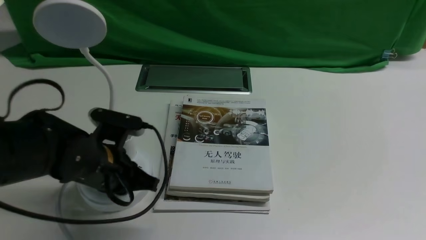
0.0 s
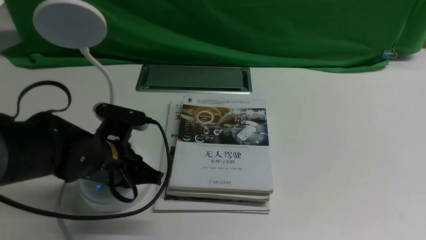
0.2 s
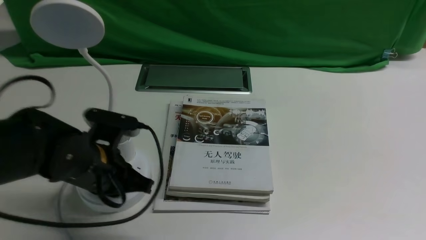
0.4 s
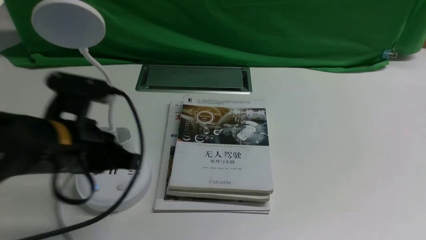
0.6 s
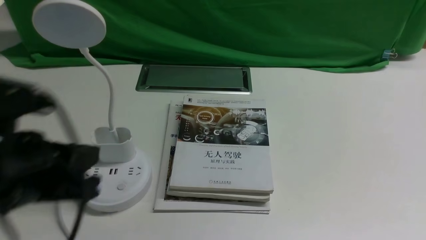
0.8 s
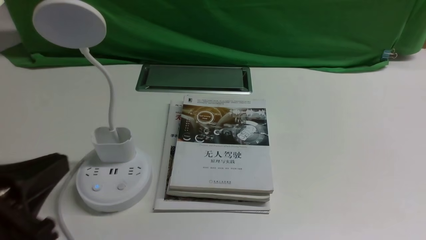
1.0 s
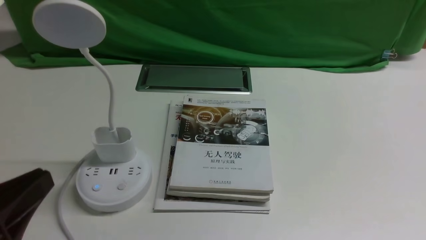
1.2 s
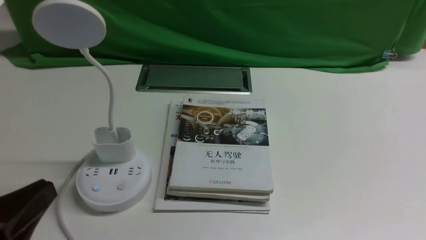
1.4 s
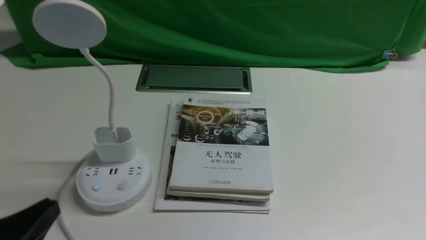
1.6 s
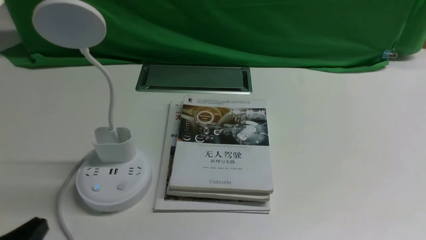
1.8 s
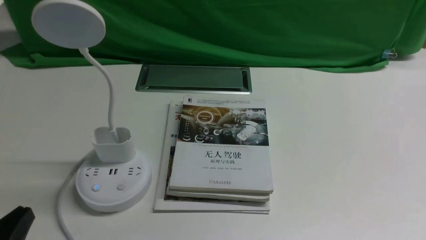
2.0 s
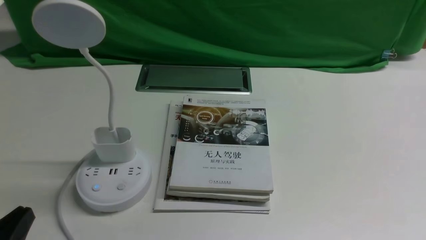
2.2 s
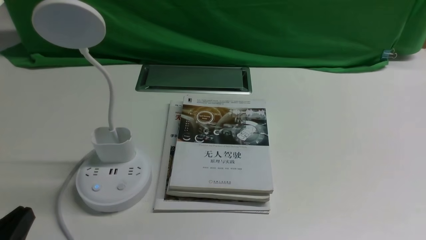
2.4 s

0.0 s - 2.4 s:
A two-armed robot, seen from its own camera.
Task of the whole recording: turn off the desk lamp on the white desktop by hand.
0.0 s - 1.2 s: The left gripper travels backward and upward by about 20 cm.
1.2 s - 2.4 s: The left gripper heads downward, covering approximately 10 cm.

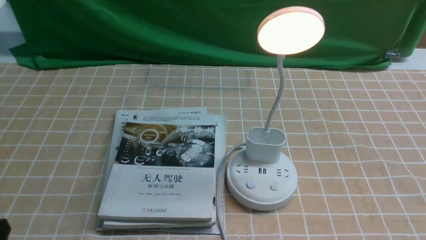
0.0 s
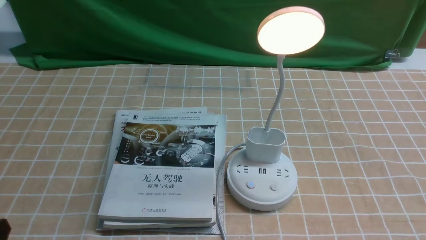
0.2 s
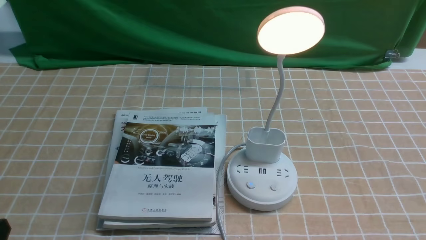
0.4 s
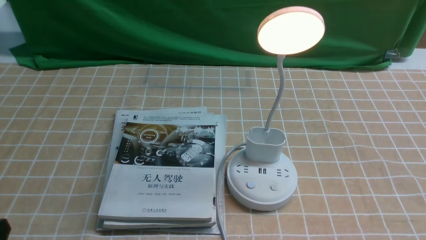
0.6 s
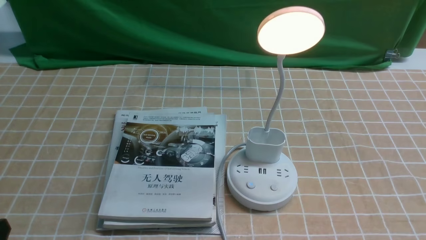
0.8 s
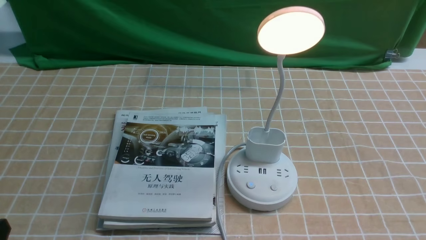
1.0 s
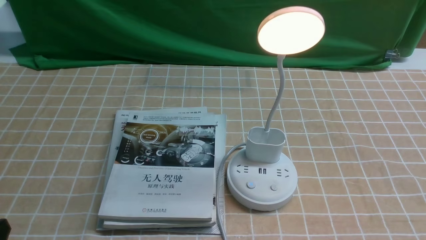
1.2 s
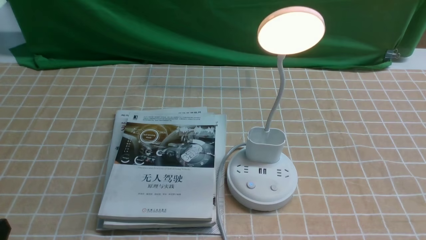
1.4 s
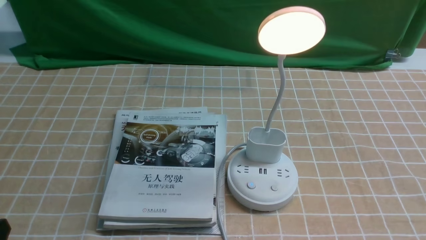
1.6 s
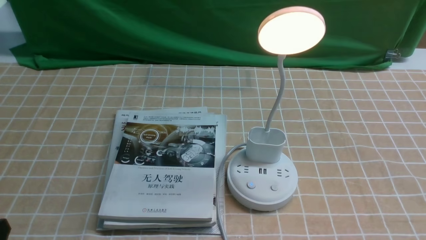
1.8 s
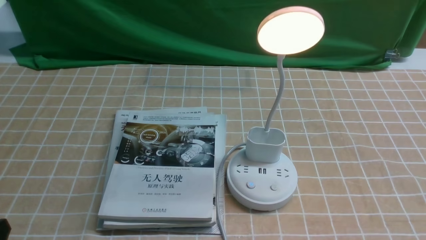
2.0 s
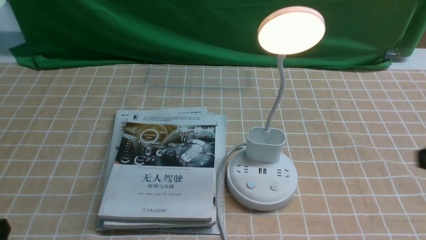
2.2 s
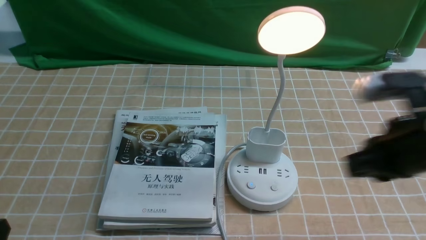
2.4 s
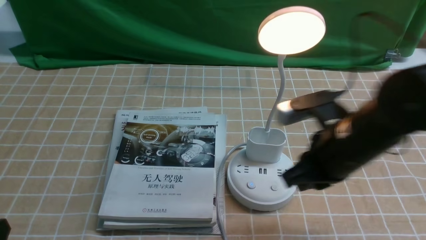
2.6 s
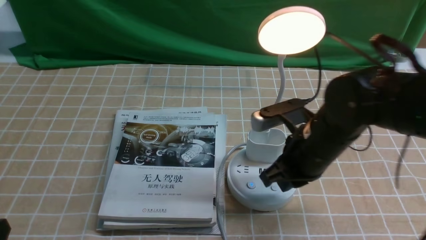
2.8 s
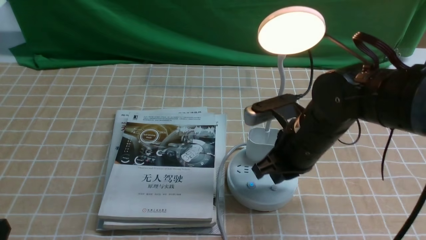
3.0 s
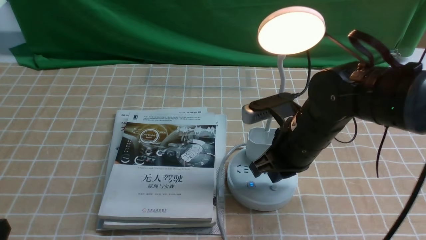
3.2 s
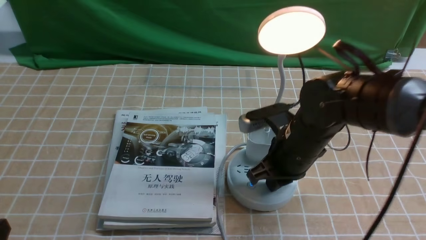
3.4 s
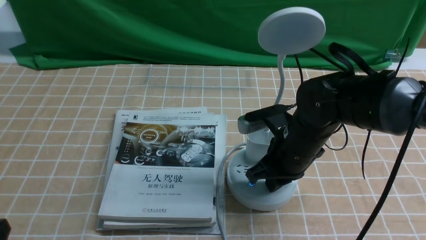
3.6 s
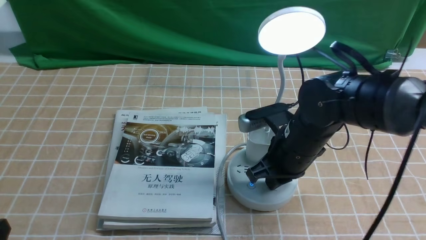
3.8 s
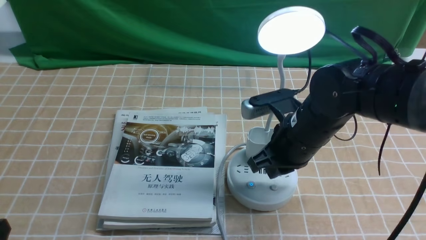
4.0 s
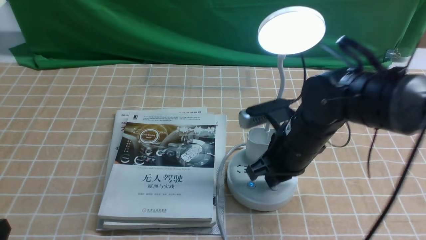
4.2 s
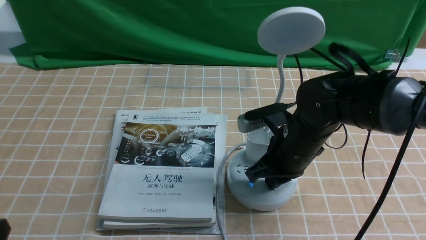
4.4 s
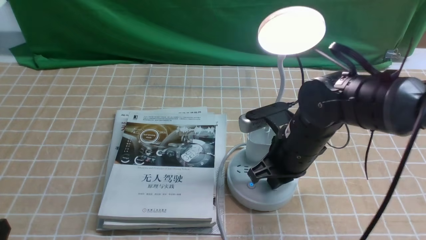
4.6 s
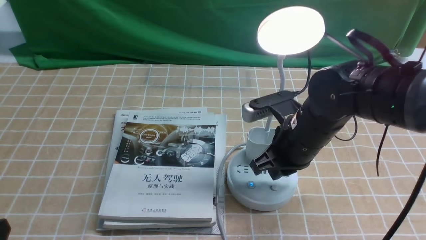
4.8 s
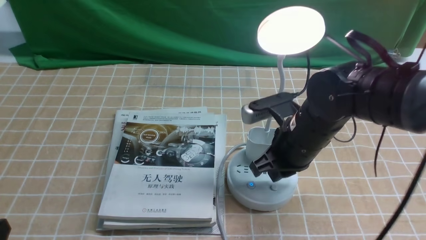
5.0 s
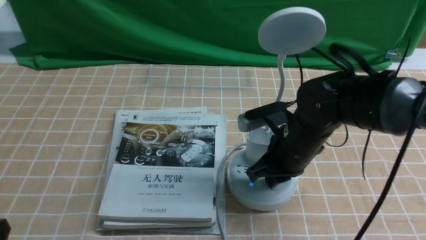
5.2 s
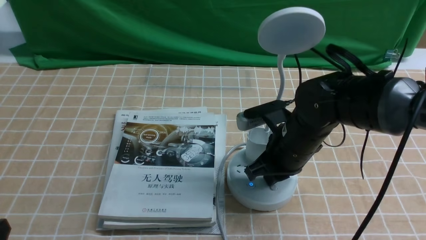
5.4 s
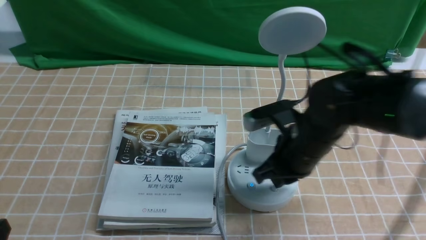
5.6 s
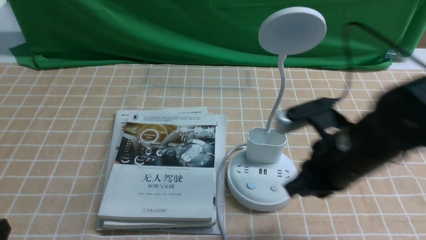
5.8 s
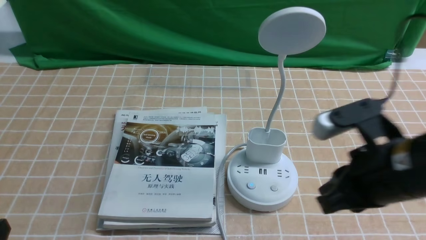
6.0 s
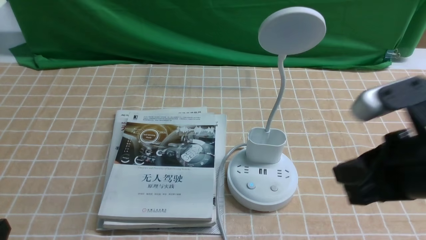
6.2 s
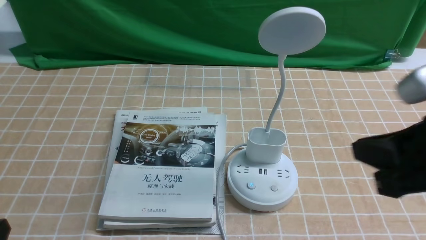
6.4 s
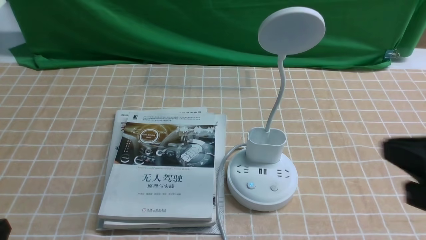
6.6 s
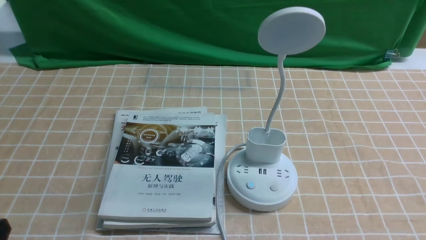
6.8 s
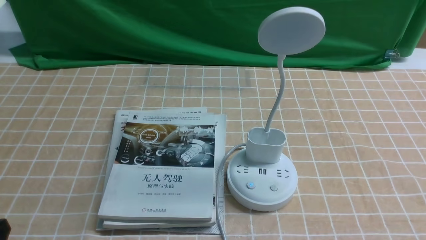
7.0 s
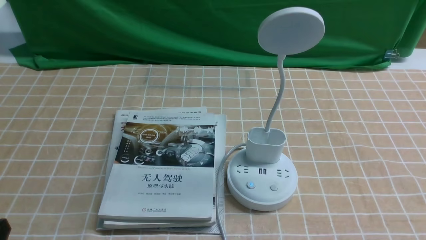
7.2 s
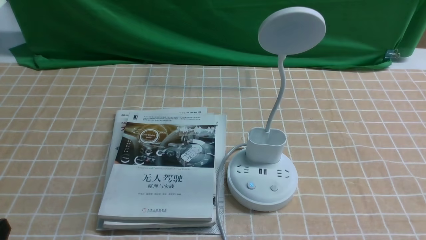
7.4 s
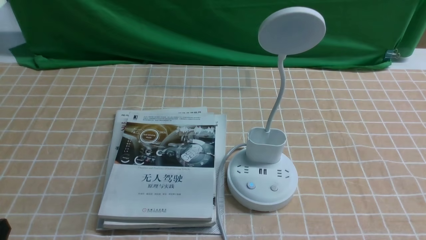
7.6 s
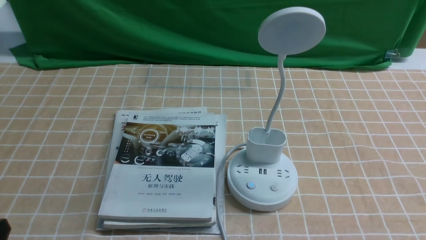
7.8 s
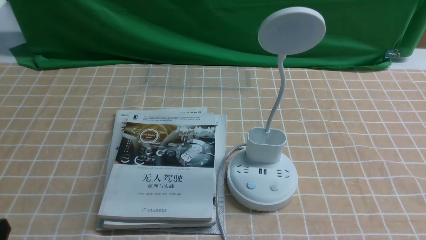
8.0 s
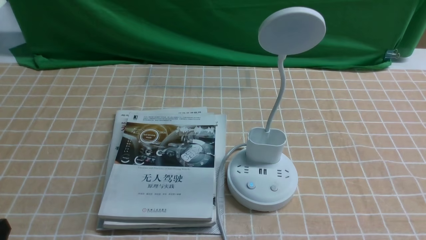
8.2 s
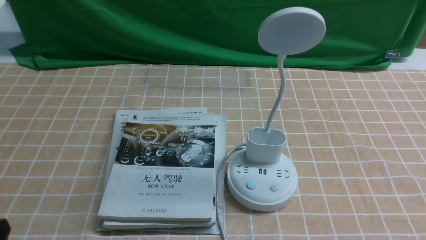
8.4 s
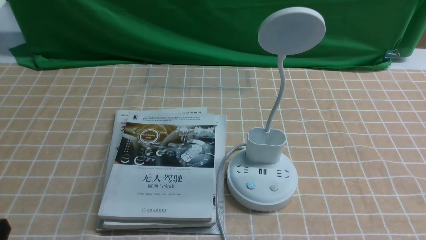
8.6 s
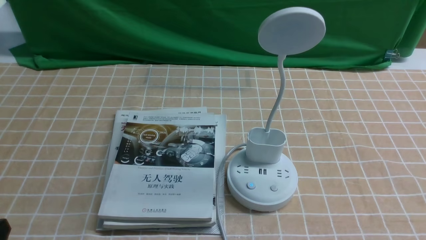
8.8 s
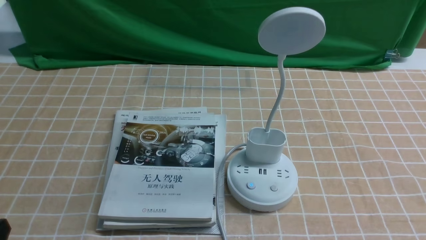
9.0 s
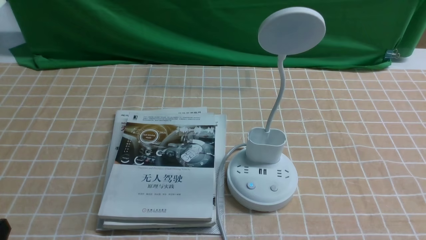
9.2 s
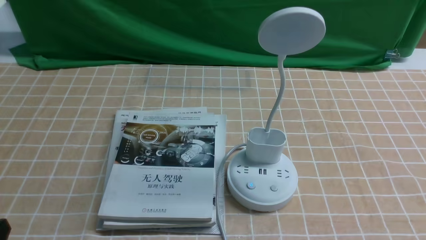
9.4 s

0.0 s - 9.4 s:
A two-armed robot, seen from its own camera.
Task of the whole recording: turn off the desk lamp on the light coffee tablecloth by hand.
Step, 0.0 s - 5.6 s: use the right arm to press the button switch on the lamp holder.
1.6 s - 3.2 s: The right gripper moves forward and to the left, about 30 cm, and closes up.
3.2 s - 4.8 s: The grippers stay close to where they were, moving slightly.
4.8 s - 6.2 s: The right gripper goes about 20 cm backward, upward and to the right.
6.2 s - 7.8 s: The right gripper goes some 20 cm downward, backward and to the right.

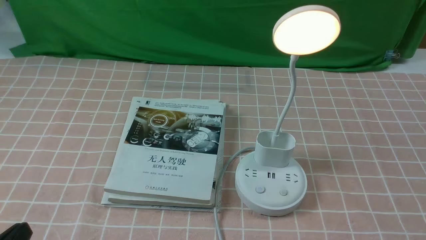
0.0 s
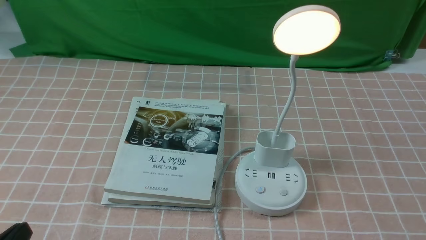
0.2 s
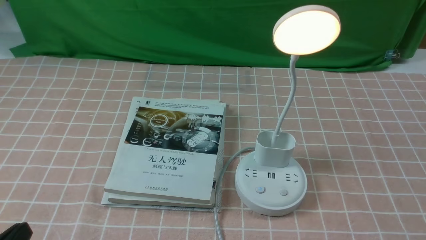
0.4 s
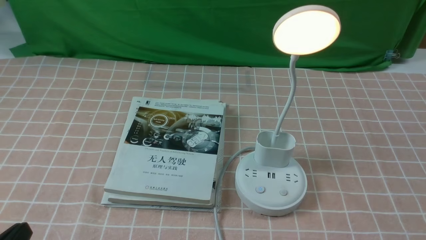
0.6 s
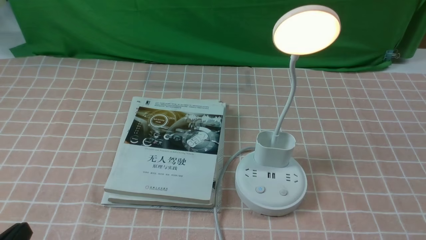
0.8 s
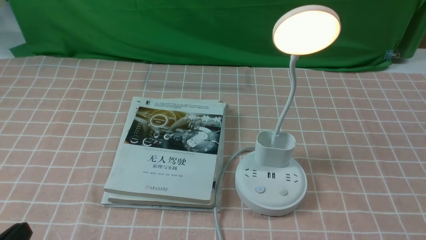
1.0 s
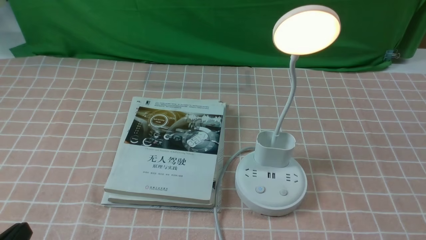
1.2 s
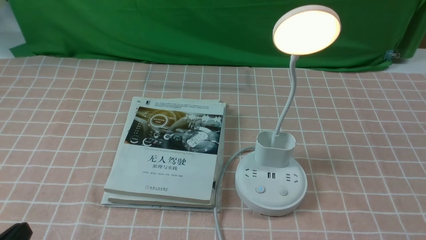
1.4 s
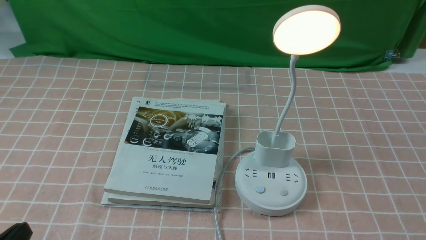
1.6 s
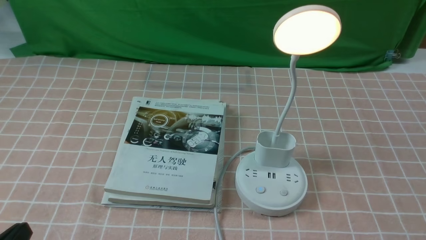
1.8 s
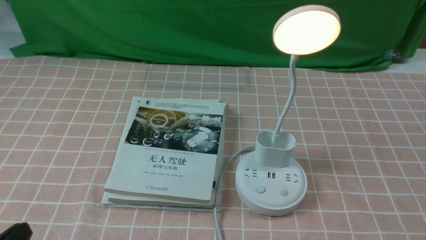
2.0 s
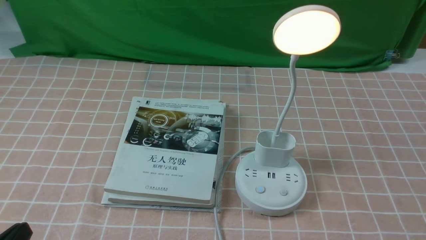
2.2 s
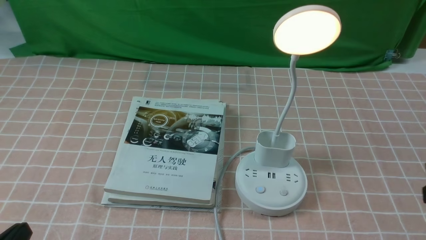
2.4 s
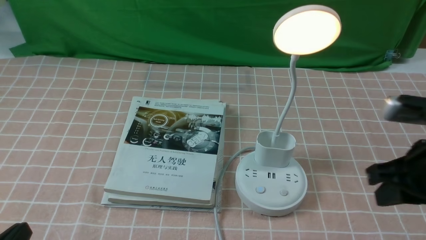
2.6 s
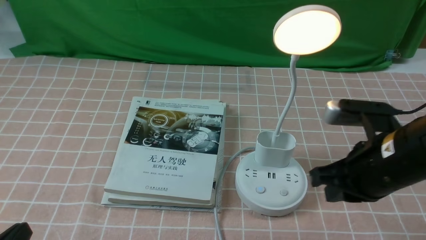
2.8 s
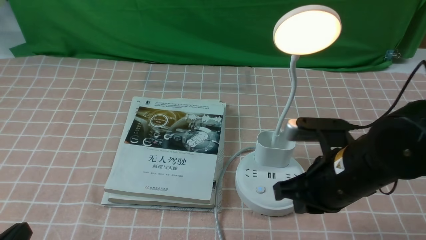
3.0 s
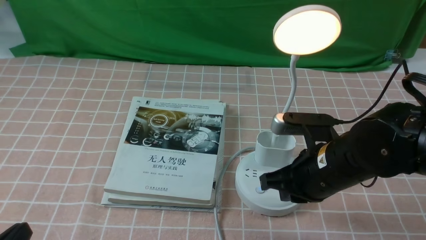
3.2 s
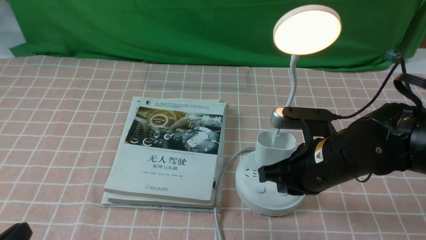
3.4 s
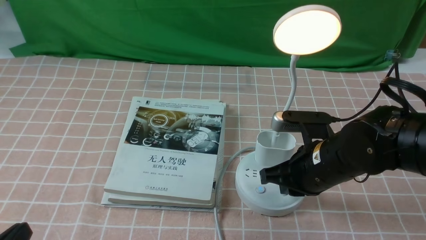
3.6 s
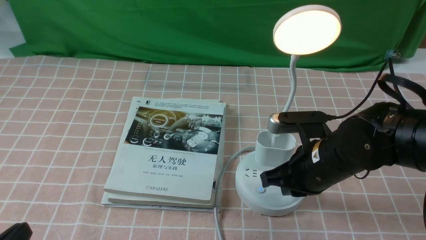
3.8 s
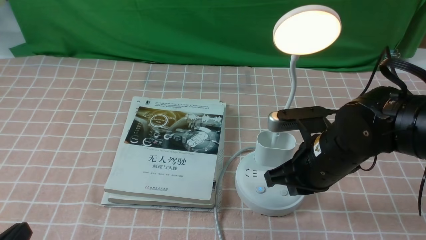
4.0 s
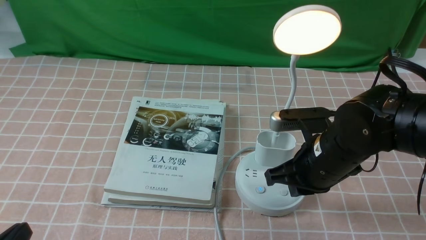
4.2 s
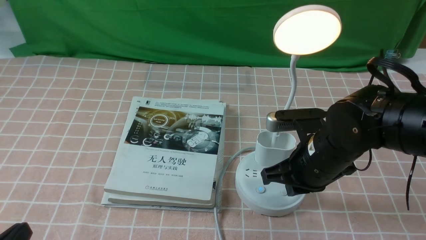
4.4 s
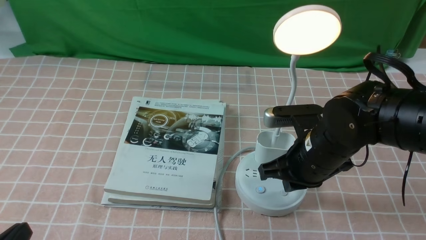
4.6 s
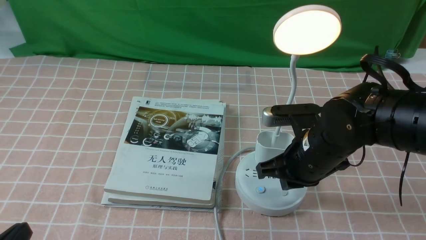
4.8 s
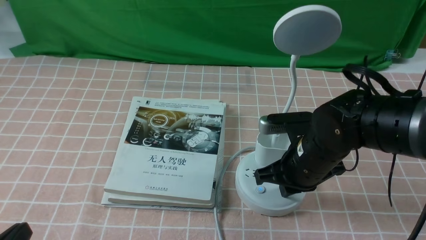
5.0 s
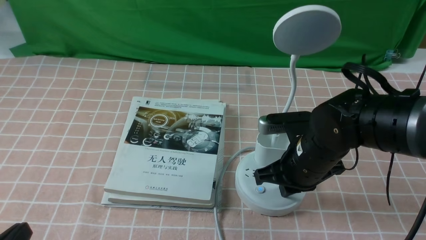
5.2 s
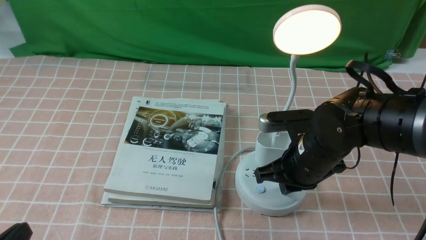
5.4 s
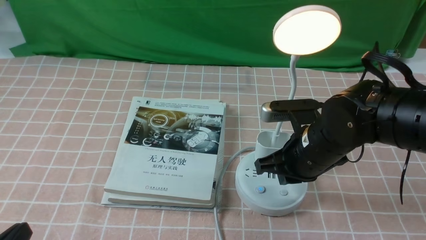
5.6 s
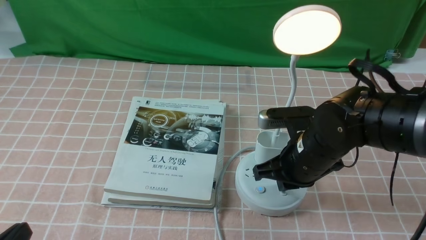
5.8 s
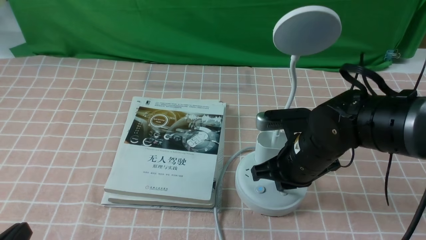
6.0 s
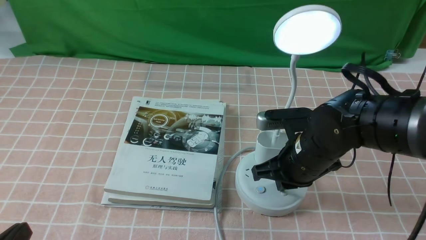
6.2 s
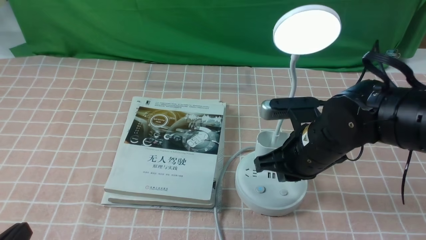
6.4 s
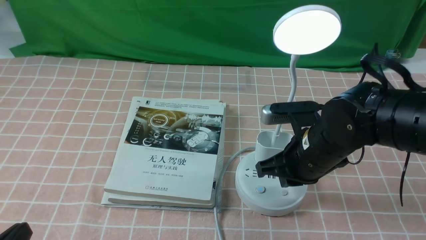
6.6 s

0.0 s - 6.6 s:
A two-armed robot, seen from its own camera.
Task of the whole recording: turn off the table lamp on the pink coffee tablecloth by hand.
1.6 s - 3.2 s: The right gripper goes roughly 25 cm to the left and forward, and closes.
3.2 s - 5.0 s: The right gripper changes place by about 5 cm.
5.0 s - 6.6 s: Both grippers stay about where they are.
